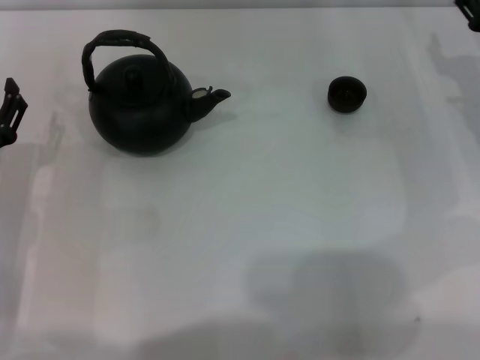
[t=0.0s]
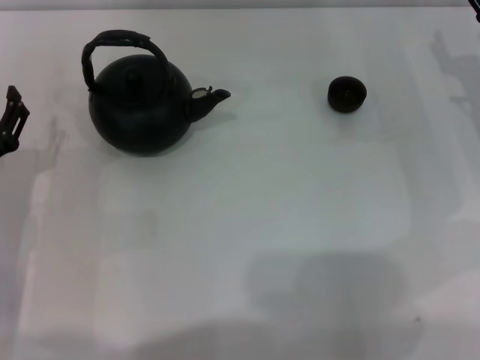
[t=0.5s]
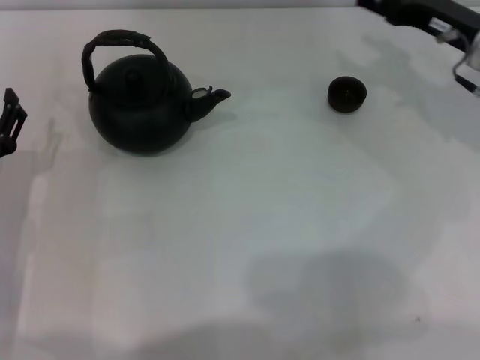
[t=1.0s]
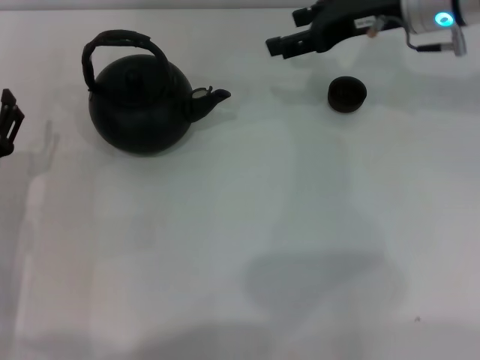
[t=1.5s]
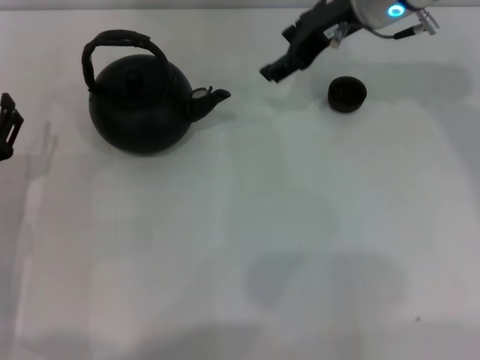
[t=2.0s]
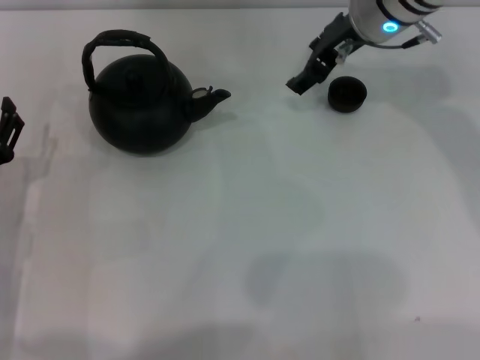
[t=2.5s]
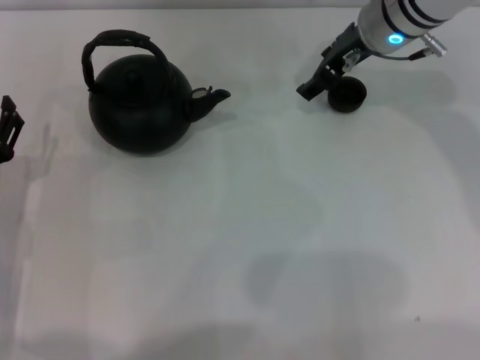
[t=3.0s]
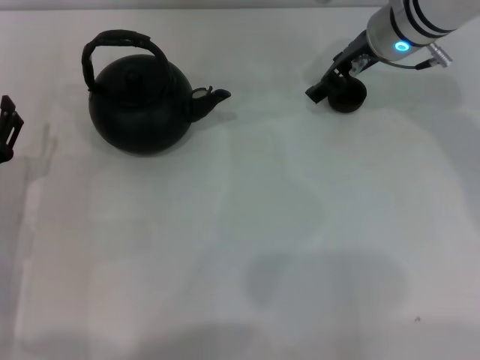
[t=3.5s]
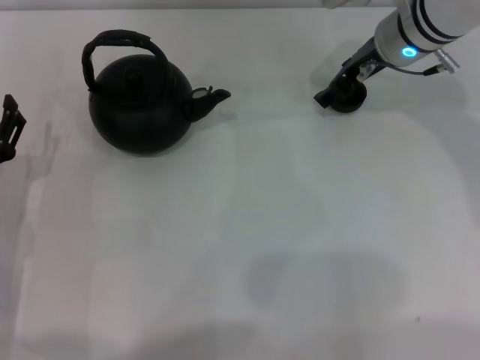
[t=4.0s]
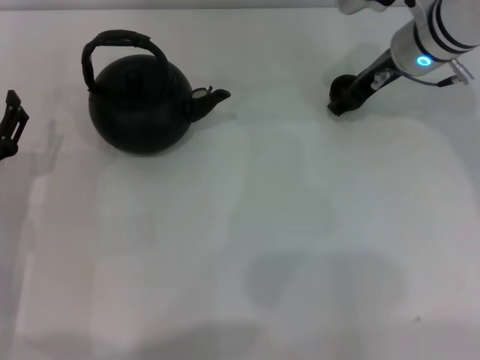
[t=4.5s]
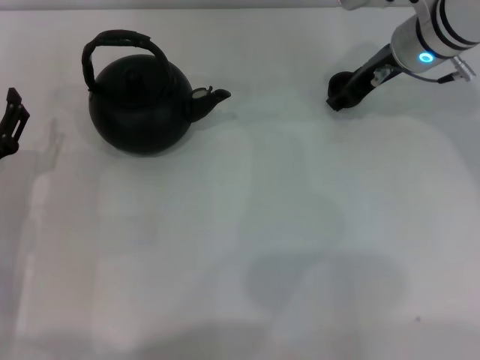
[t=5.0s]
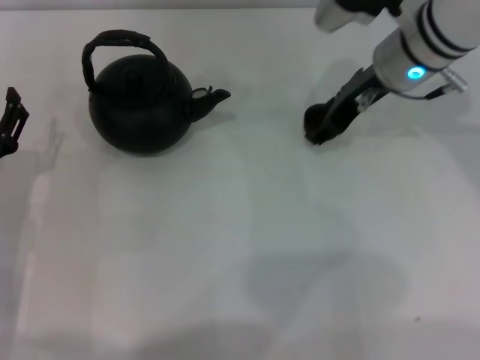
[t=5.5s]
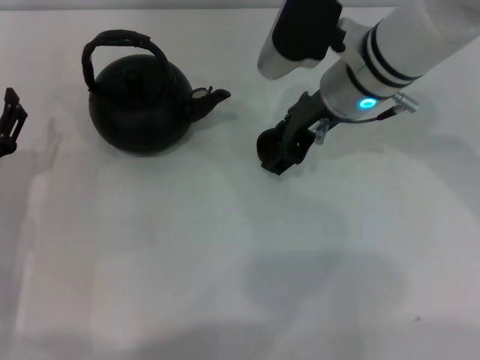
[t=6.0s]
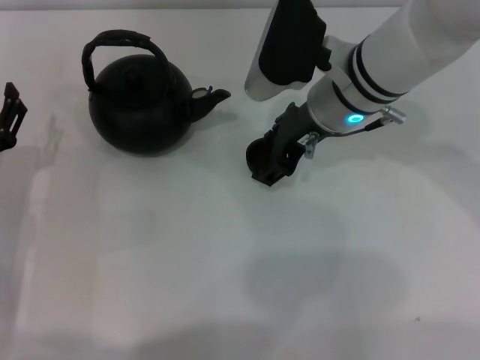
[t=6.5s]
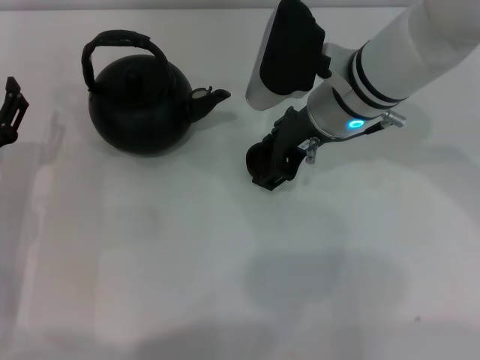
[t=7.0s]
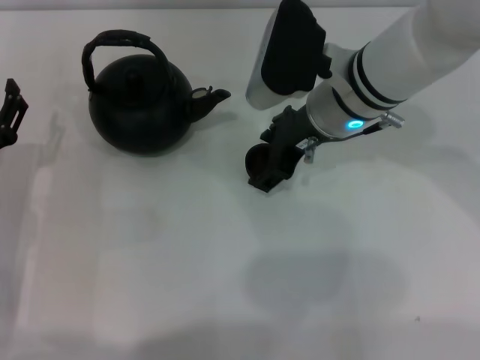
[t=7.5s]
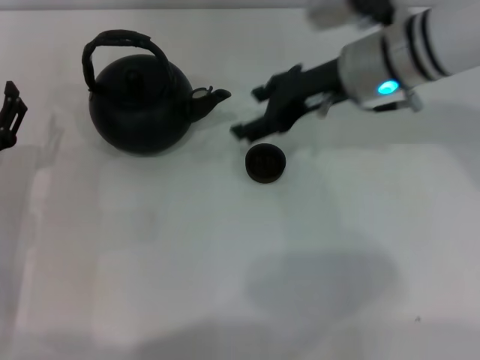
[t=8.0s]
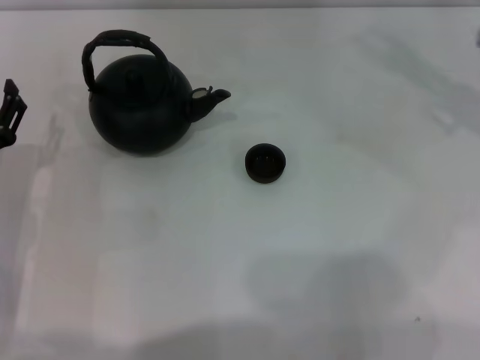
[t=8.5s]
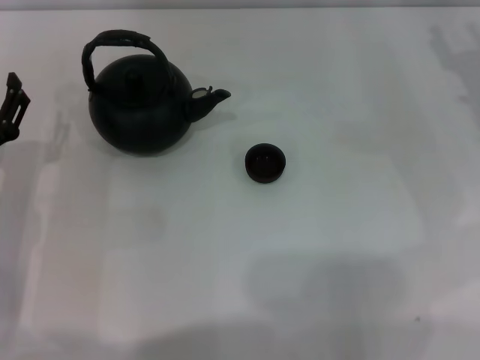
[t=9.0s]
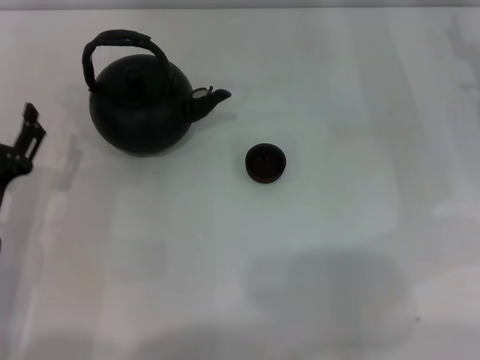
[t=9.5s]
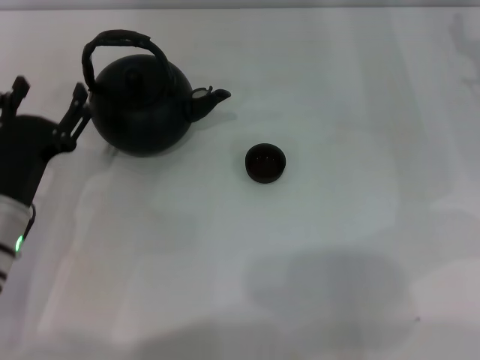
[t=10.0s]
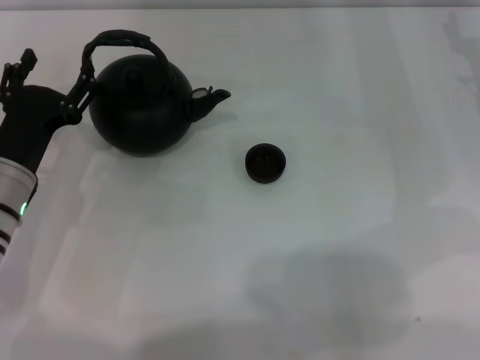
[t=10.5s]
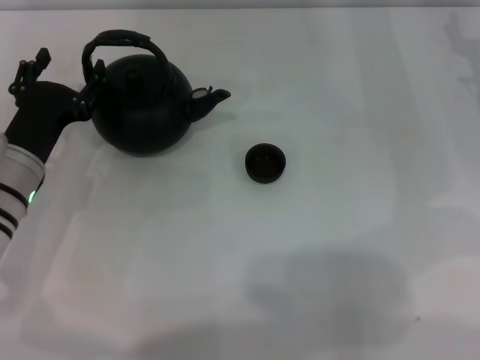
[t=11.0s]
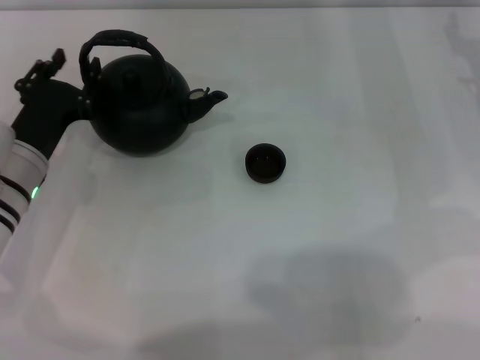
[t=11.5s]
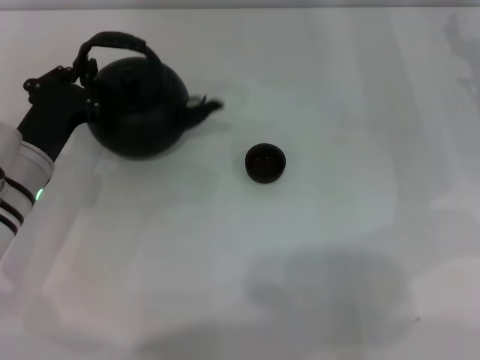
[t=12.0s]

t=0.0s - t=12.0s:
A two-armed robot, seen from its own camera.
Task of the whole recording: Grasp the handle of the teapot with one hand and pour tea into the teacup.
Step, t=0.0s - t=5.0s: Pick up the teacup with the right gripper.
Step, t=5.5s - t=7.5s: Place the teacup in the center of view with the right gripper.
t=0.0s - t=2.0s: The right gripper goes some 20 cm to the left, upward and forward, and opens its fingers.
t=2.0s - t=4.0s: The right gripper moves downward, roughly 5 cm, and closes.
t=4.0s - t=6.0s: The right gripper travels to the left and backward by some 10 cm.
t=6.0s - t=8.0s: The right gripper opens.
t=8.0s - t=10.0s: The right gripper is displaced to the right by some 15 cm.
t=10.0s - t=12.0s: The left gripper goes about 5 cm forward, and closes.

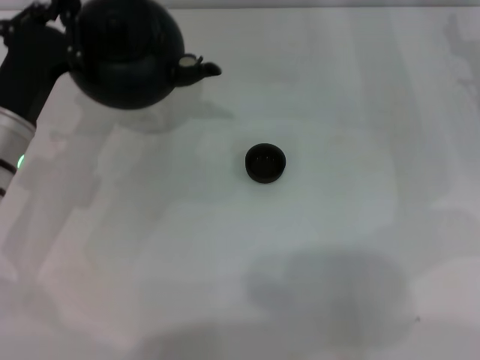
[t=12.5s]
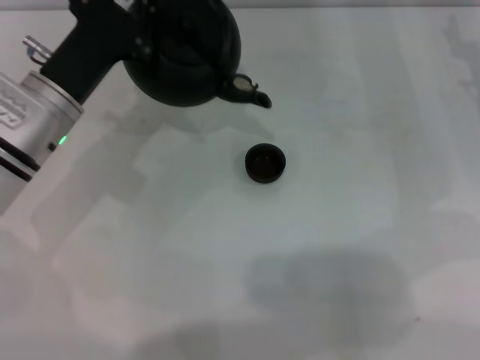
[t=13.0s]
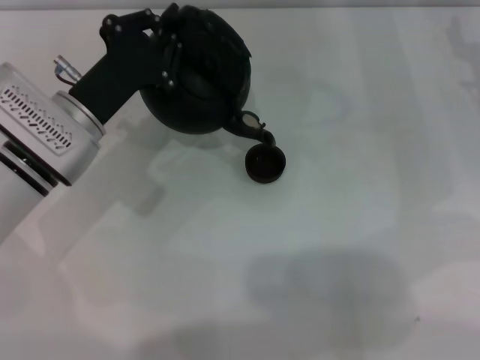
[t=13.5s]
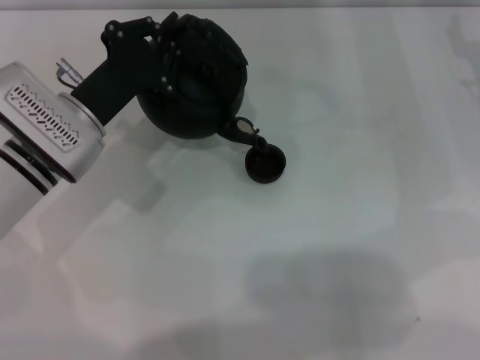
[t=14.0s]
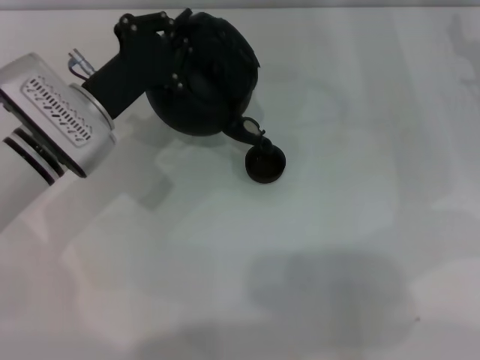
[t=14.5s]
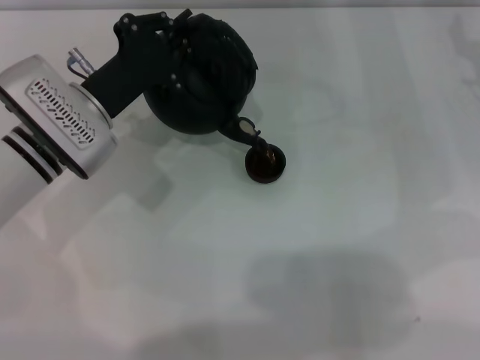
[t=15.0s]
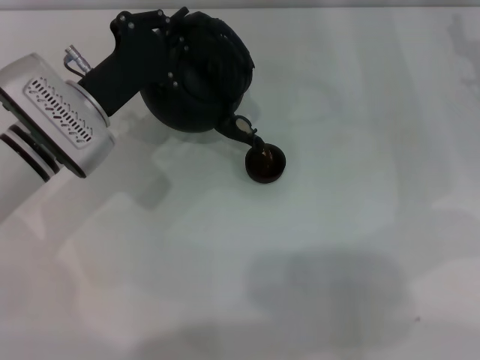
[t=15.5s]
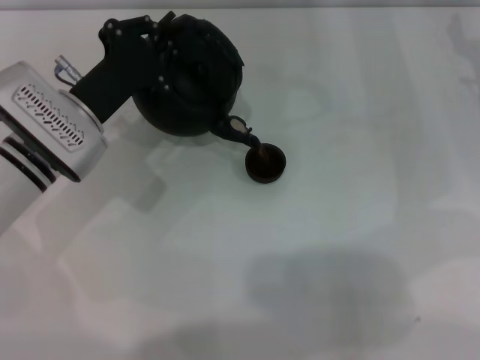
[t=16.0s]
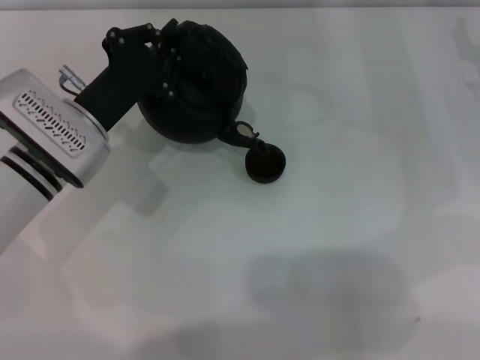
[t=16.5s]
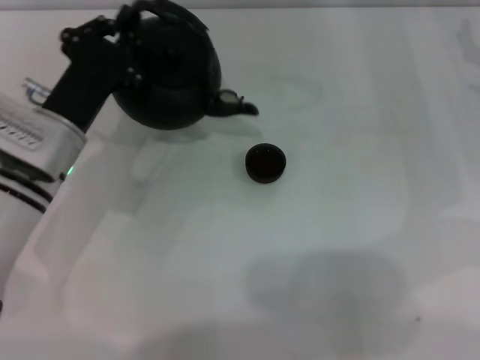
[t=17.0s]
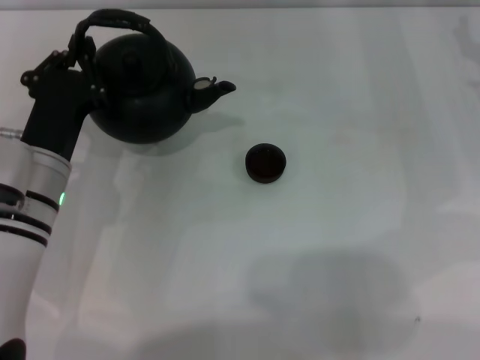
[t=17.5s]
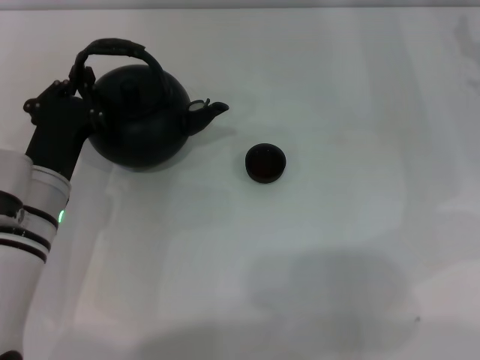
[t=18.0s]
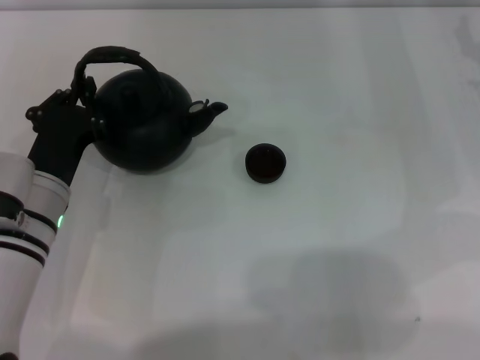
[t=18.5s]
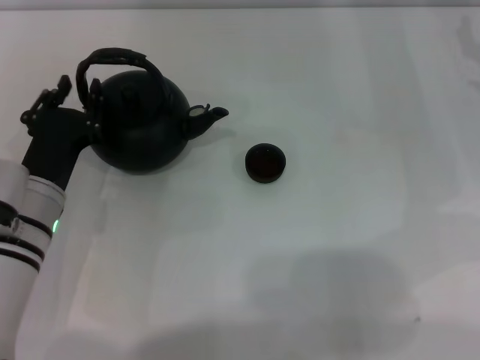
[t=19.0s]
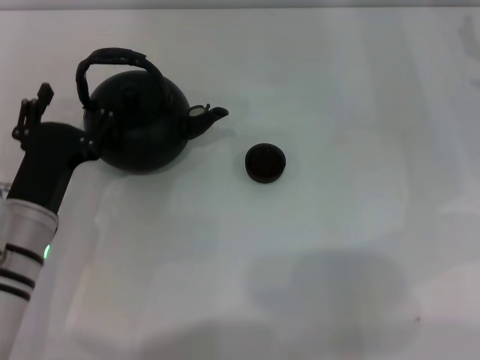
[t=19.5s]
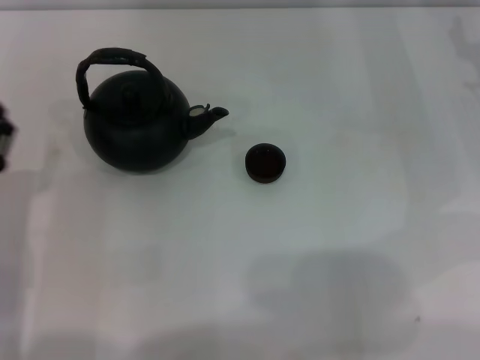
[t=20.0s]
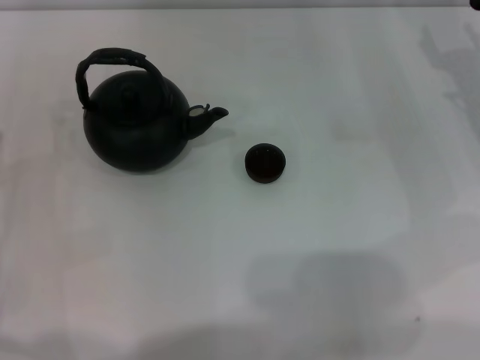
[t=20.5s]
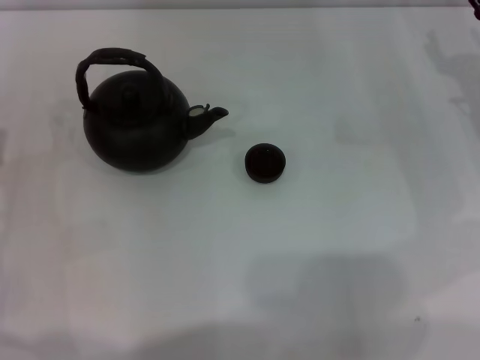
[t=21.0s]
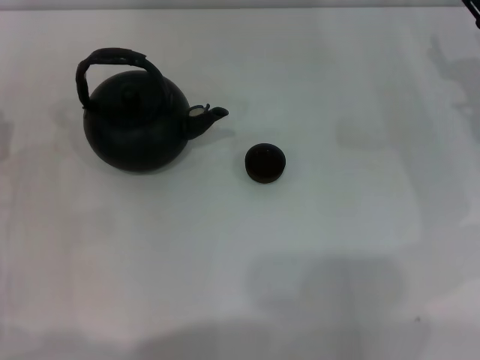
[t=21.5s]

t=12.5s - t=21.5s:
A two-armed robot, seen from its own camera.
Task of the whole recording: Grasp the handle of the teapot with one hand and pour tea into the teacup.
Step, t=13.0s - t=16.5s: Pour tea into the teacup with the left gripper.
Step, t=17.0s - t=19.5s: Put down the teapot with the left gripper.
t=12.5s - t=14.5s: The left gripper heads to the right, covering roughly 5 cm.
t=17.0s - t=19.5s: The left gripper travels backward by some 10 cm, and opens.
t=19.5s - t=21.5s: The left gripper moves to the left, some 10 cm.
